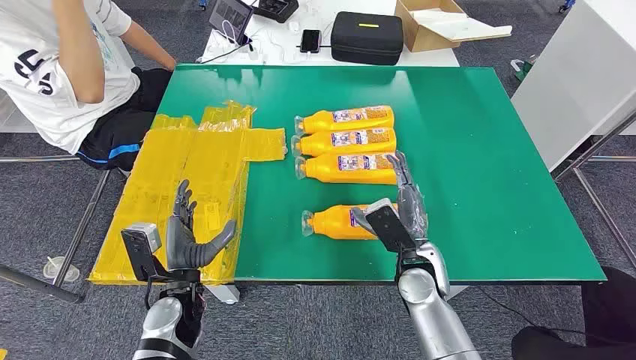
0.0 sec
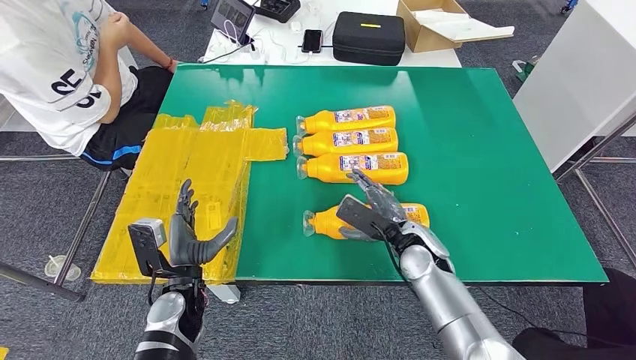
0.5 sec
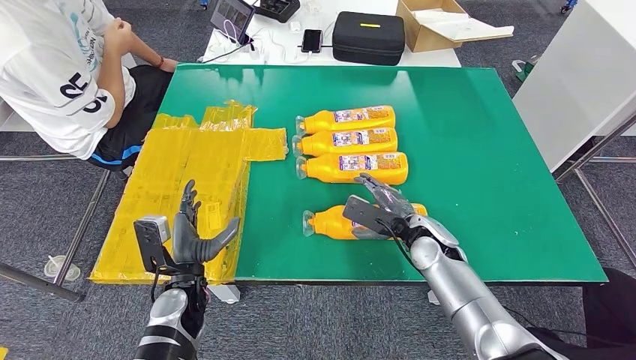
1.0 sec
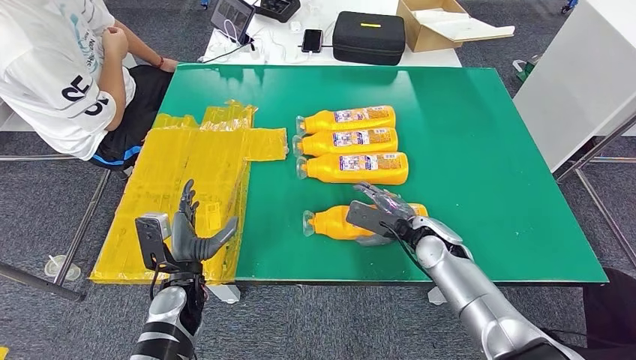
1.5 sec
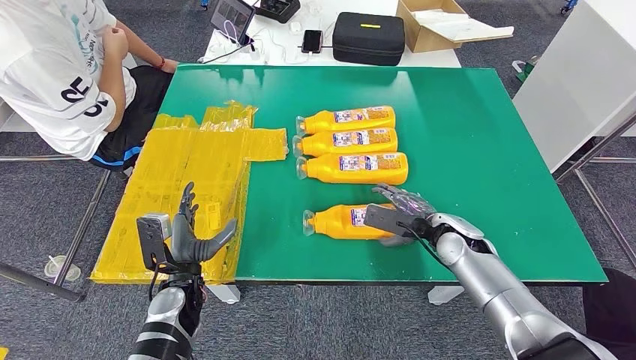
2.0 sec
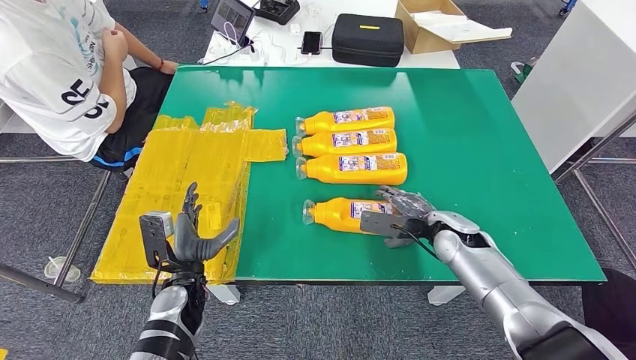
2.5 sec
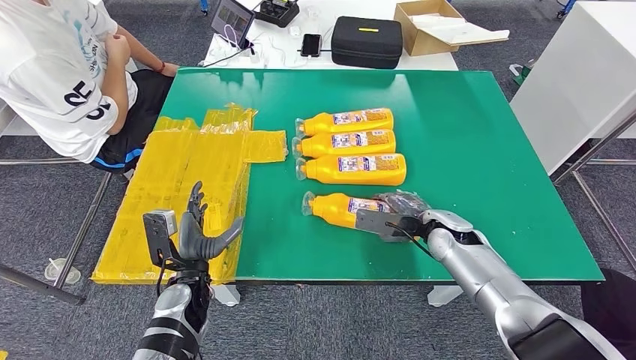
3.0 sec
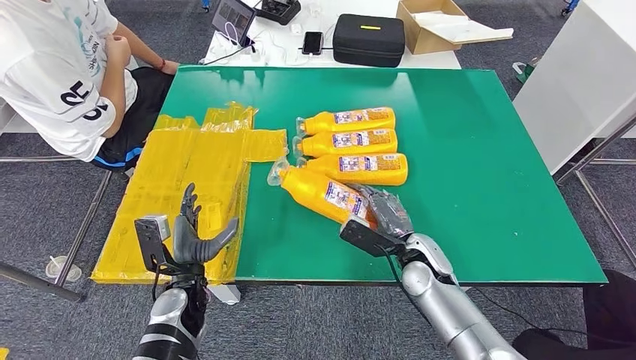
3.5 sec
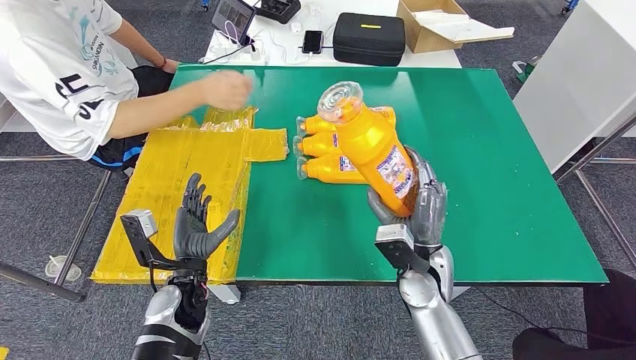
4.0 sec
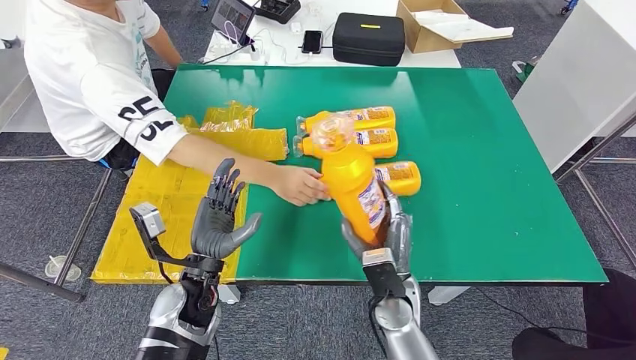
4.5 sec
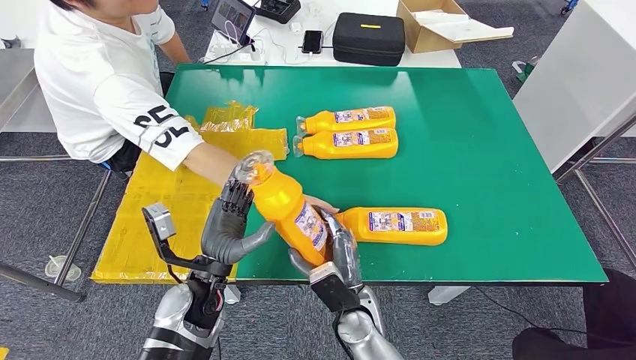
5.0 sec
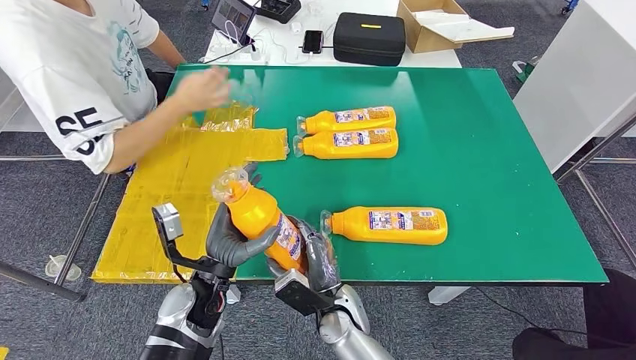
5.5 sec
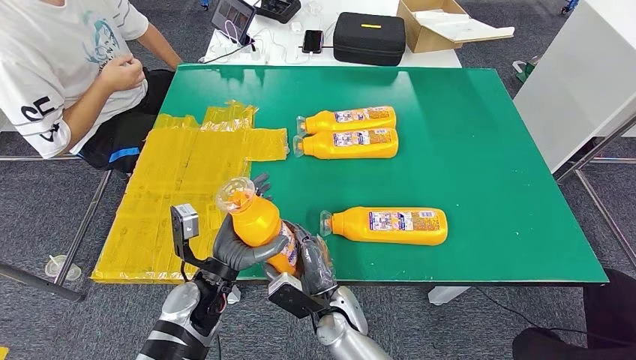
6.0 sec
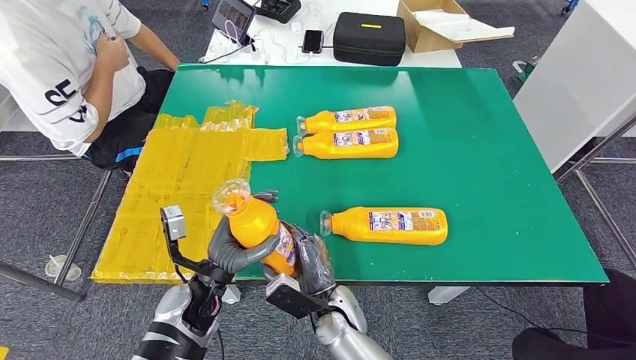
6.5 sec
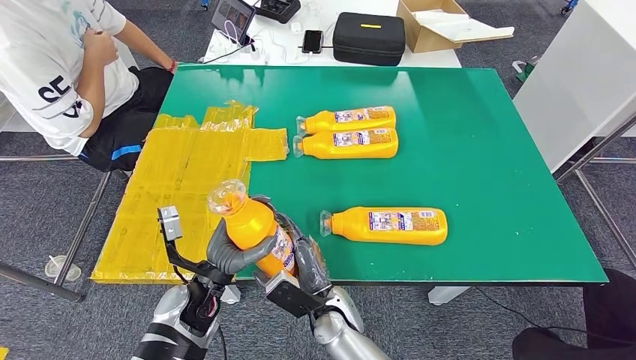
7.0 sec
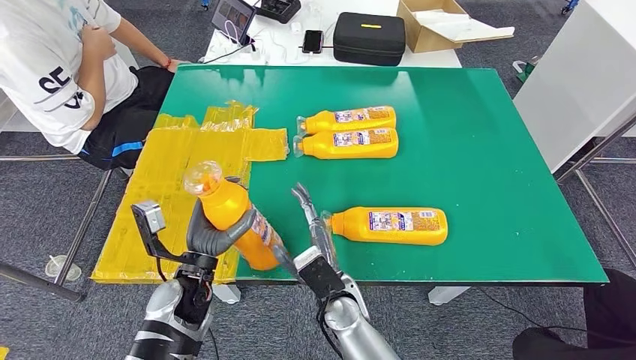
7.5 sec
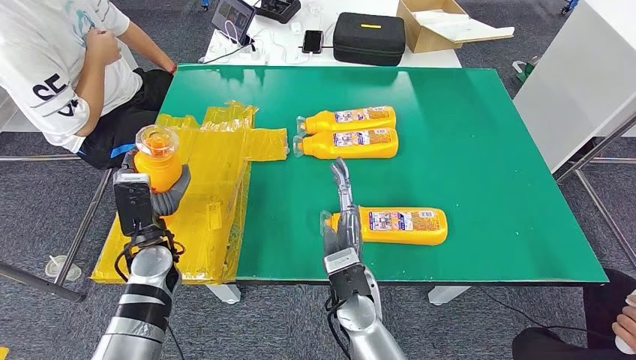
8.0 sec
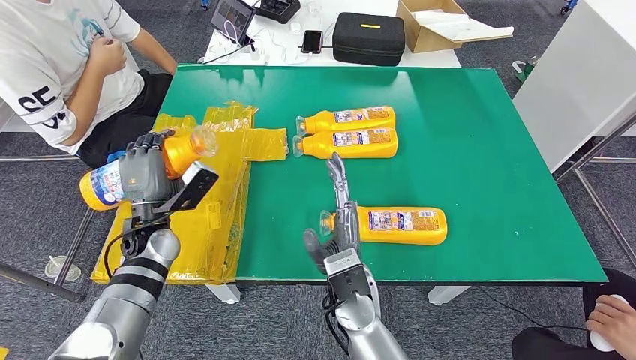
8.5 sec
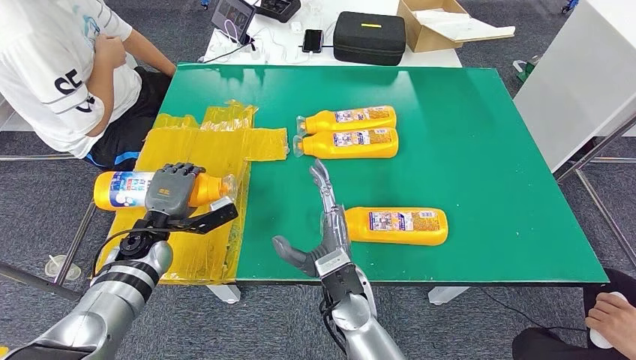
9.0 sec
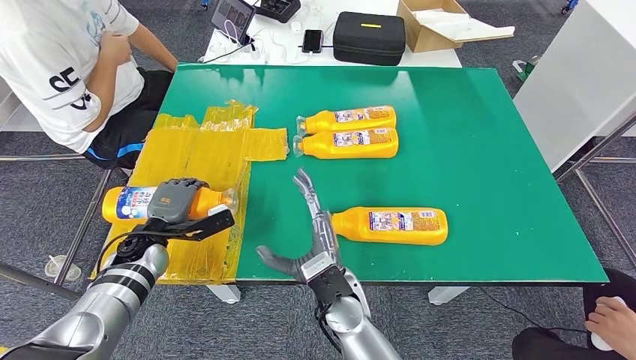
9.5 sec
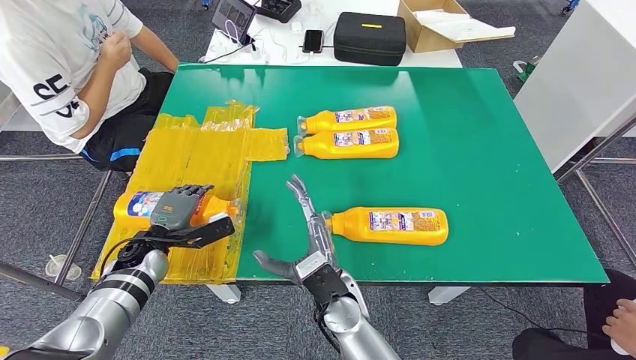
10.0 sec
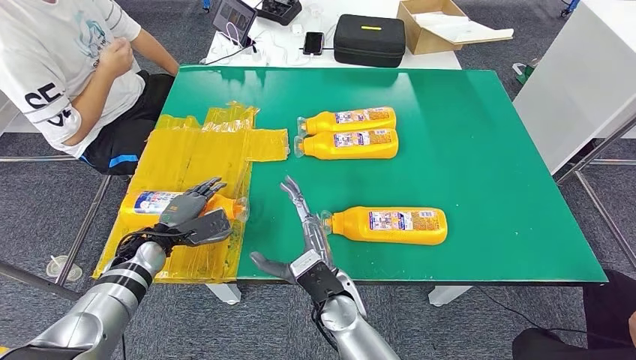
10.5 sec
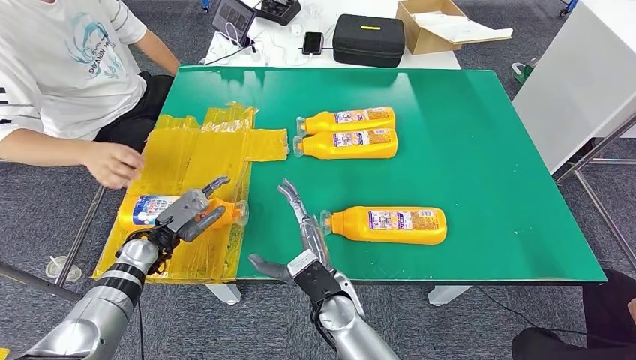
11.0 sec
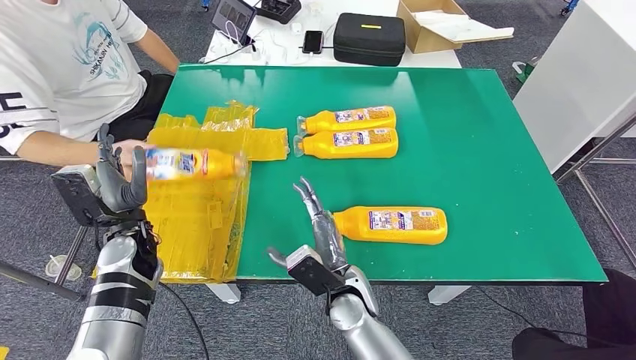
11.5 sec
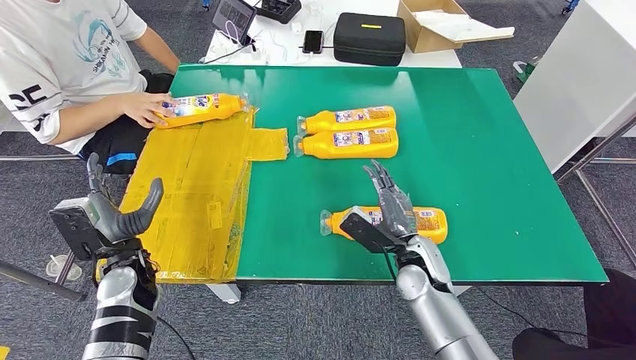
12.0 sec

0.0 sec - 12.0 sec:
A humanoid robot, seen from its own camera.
Step, 0.0 sec - 3.0 sec: Take the bottle from the table.
Step, 3.5 sec - 11.0 sec: Flip the bottle to face forward.
2.0 sec - 4.0 sec: The right hand travels to the left and backward by some 10 cm.
6.0 sec - 8.0 sec: The right hand is displaced upward by approximately 10 cm. The left hand goes roughly 10 cm to the left and forward.
8.0 sec - 10.0 sec: The left hand heads to the left and downward, covering about 10 cm.

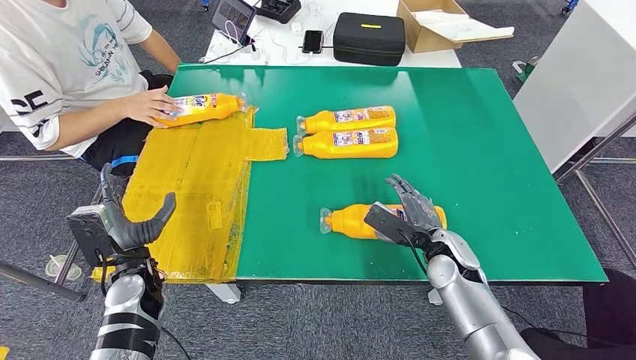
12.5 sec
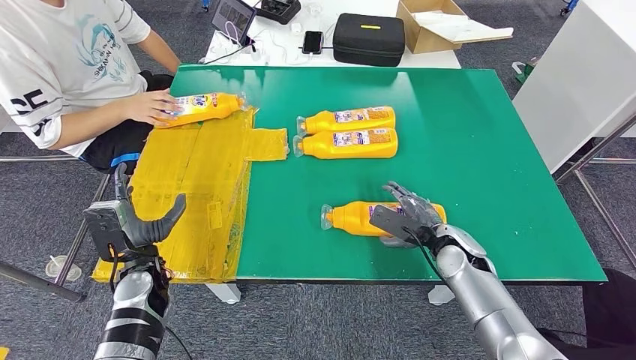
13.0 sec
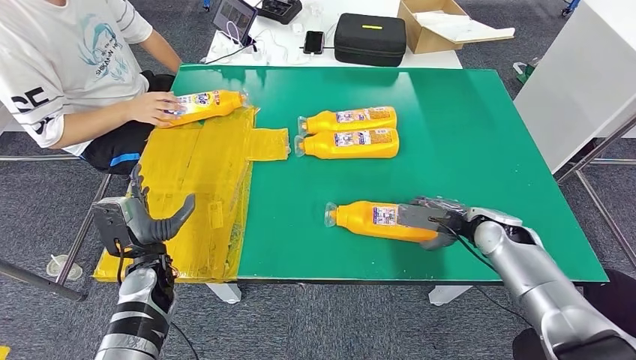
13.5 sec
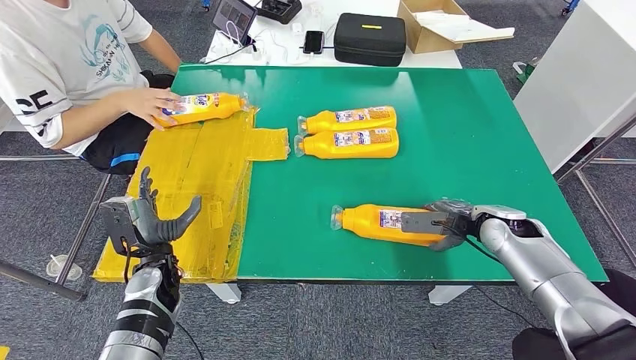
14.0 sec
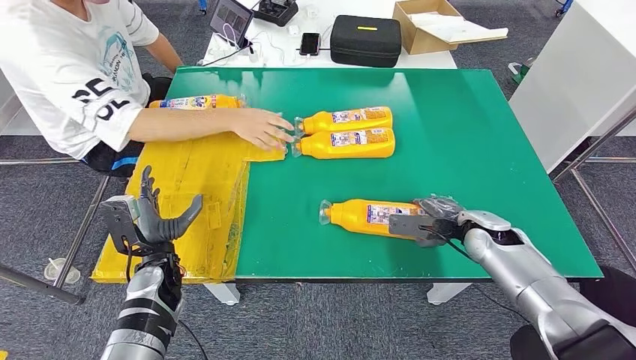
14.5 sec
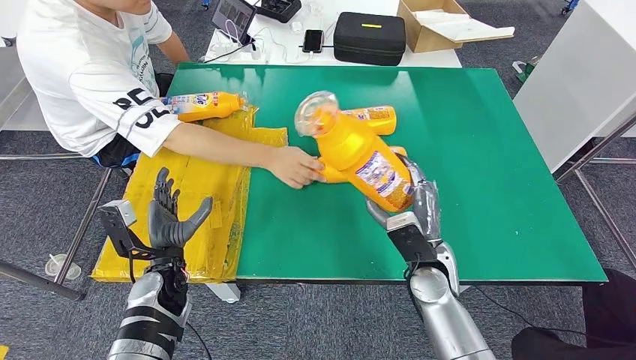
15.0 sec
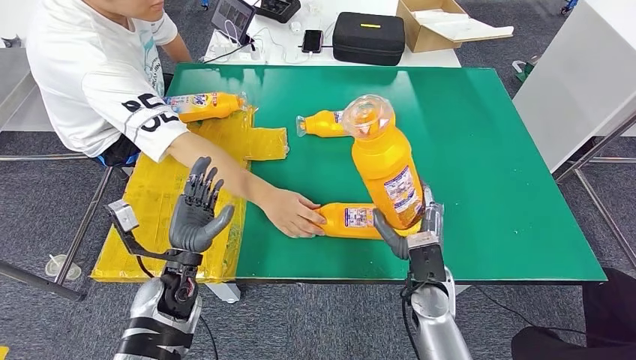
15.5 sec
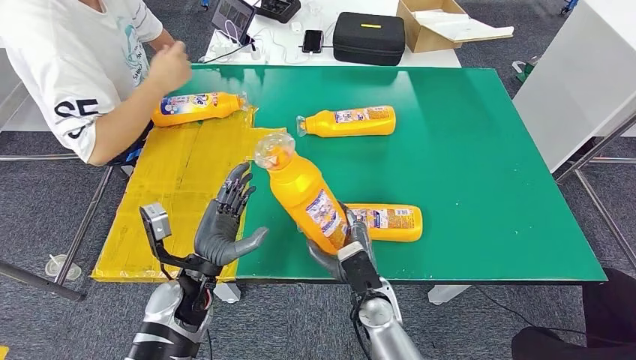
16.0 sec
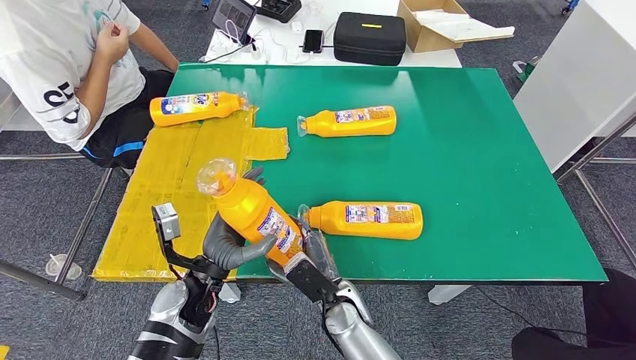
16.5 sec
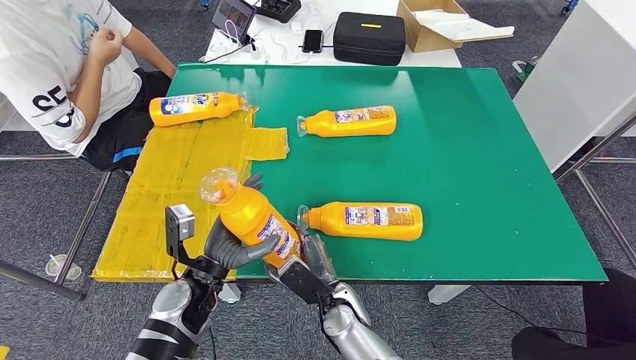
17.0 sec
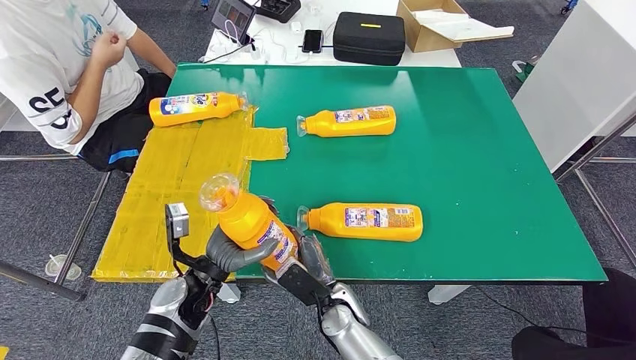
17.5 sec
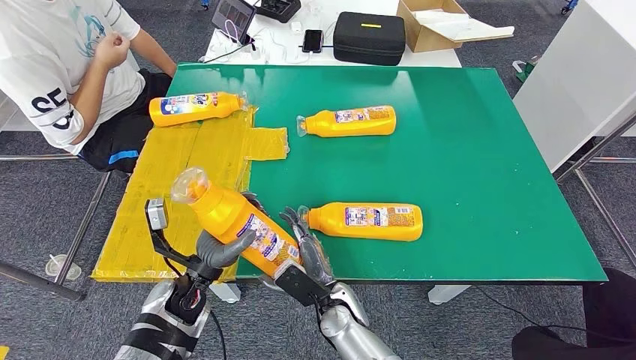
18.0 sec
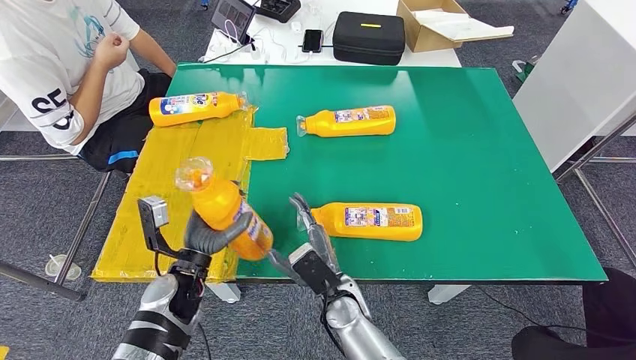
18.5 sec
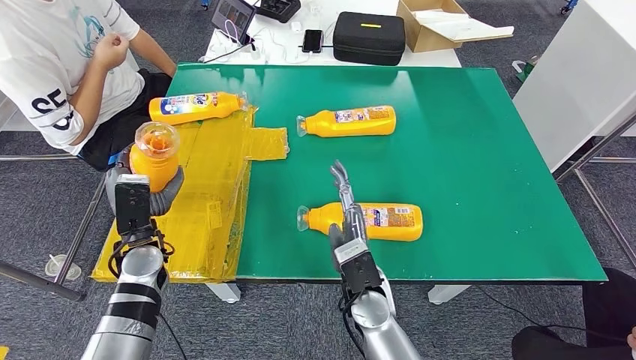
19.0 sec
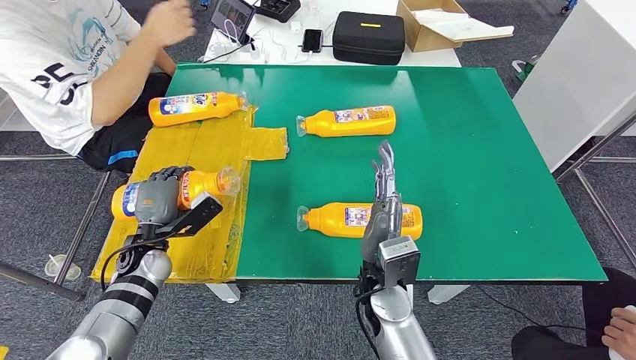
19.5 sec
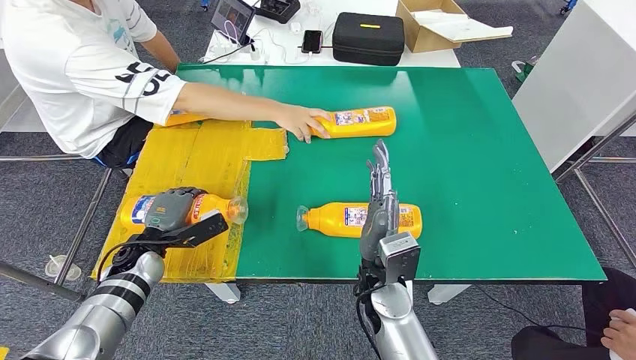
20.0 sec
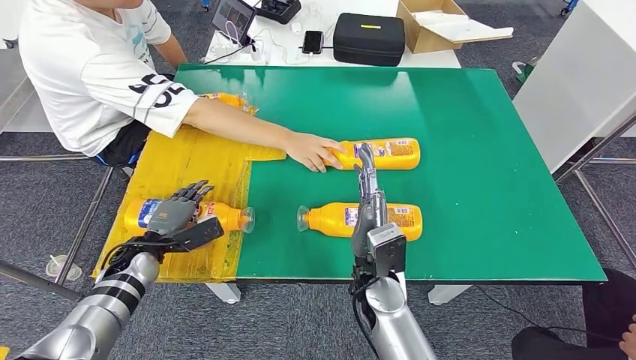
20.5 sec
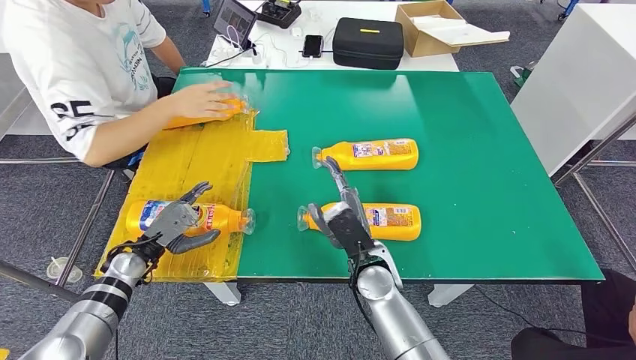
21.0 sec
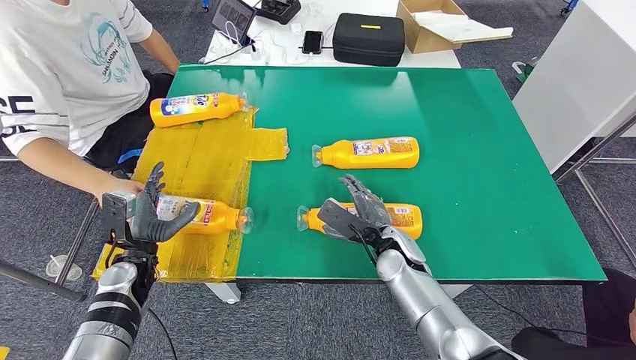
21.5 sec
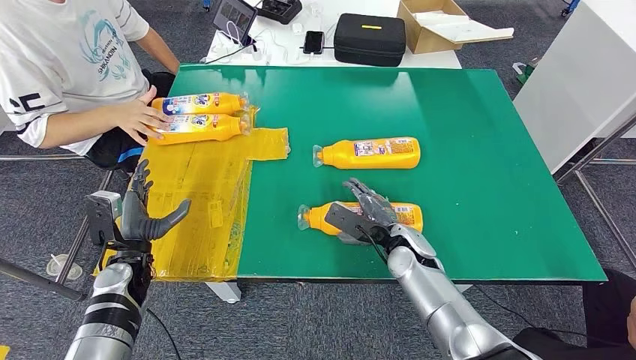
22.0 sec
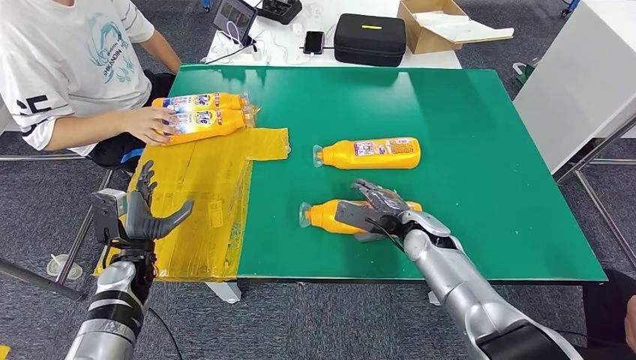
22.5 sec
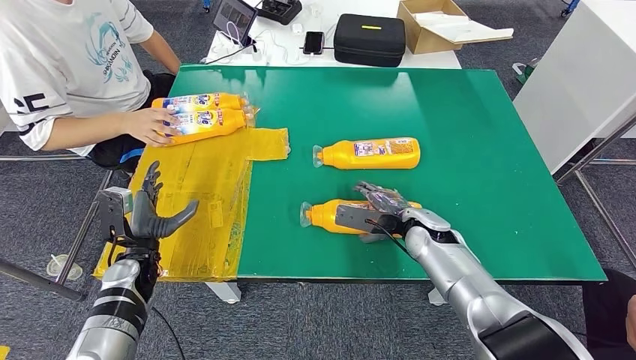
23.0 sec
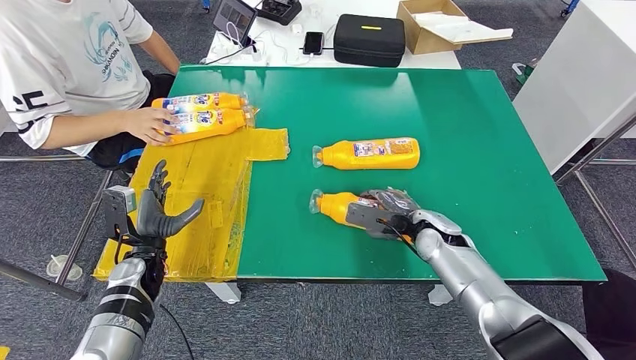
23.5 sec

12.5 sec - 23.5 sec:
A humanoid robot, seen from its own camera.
Step, 12.5 sec - 15.0 sec: Pick up the bottle from the table.
Step, 15.5 sec - 21.0 sec: Flip the bottle to face forward.
21.5 sec - 23.5 sec: The right hand goes about 10 cm to the right.
